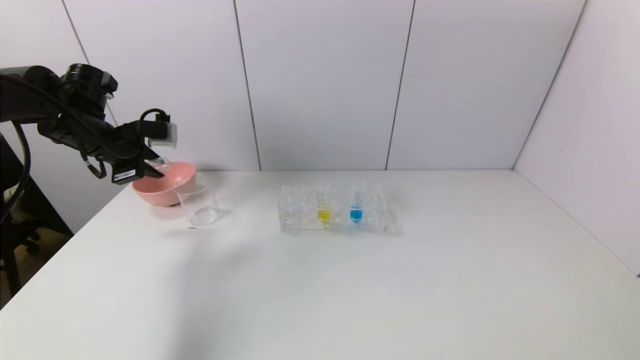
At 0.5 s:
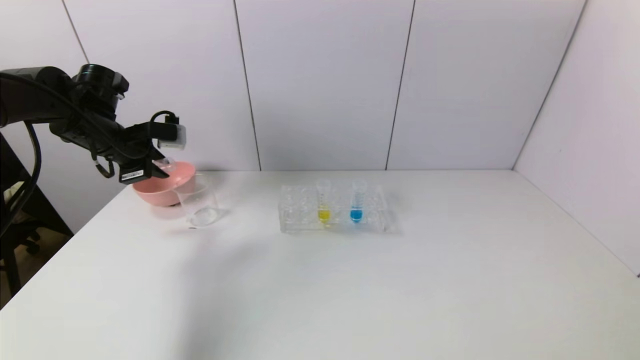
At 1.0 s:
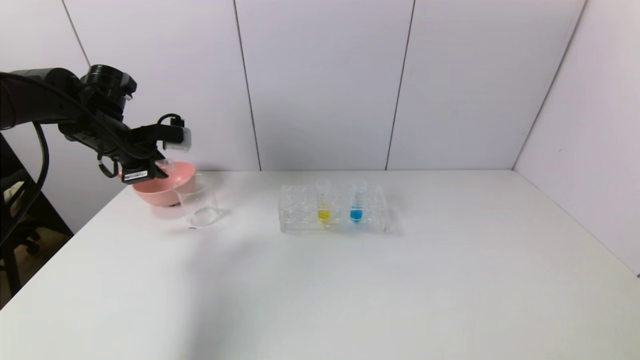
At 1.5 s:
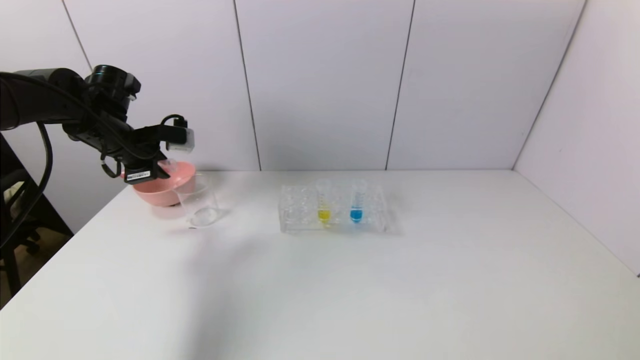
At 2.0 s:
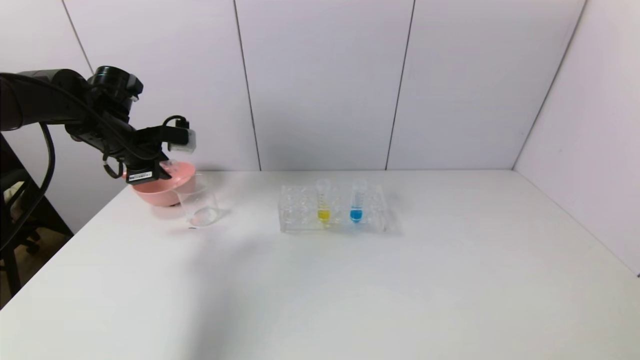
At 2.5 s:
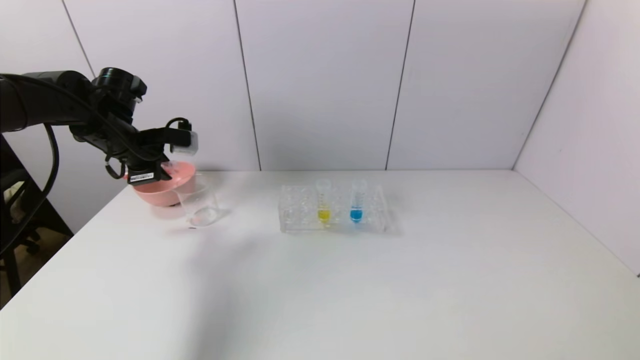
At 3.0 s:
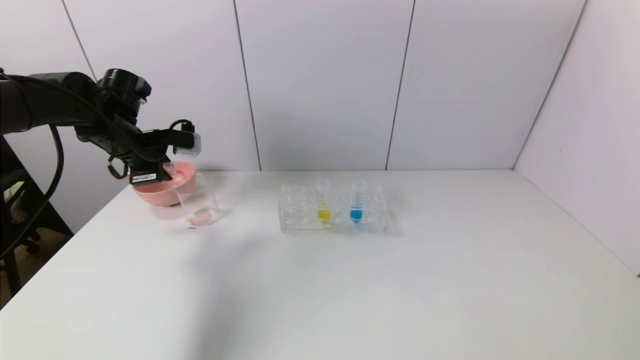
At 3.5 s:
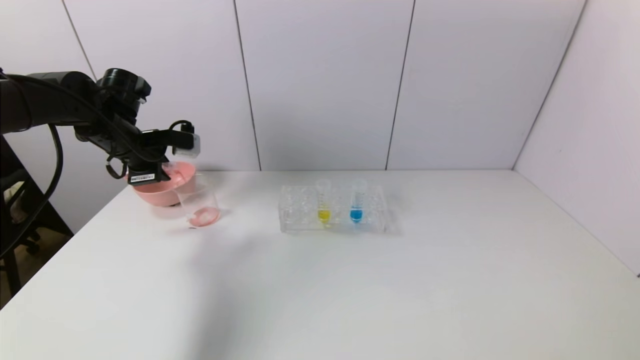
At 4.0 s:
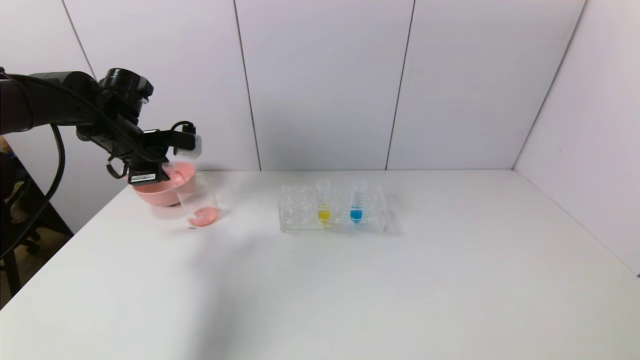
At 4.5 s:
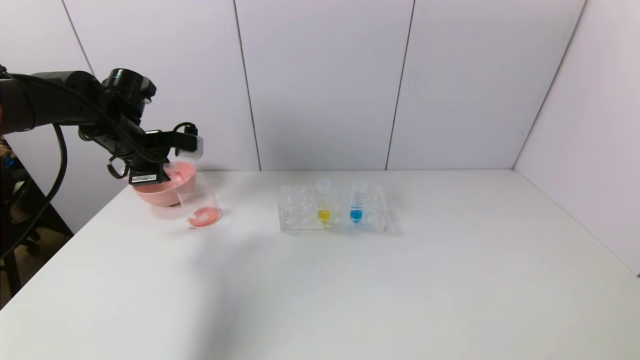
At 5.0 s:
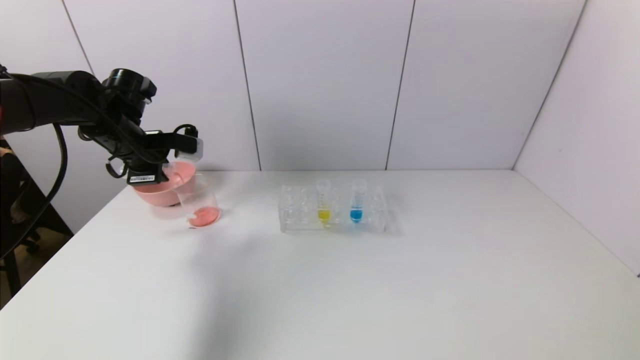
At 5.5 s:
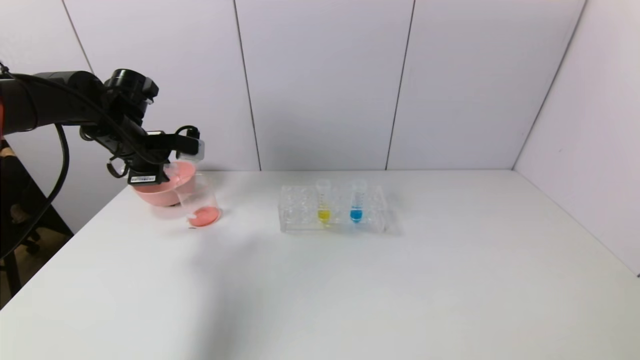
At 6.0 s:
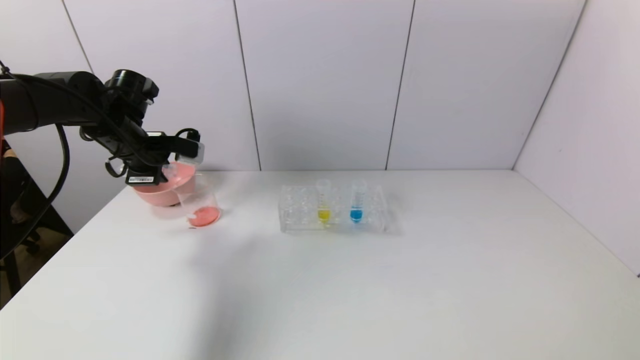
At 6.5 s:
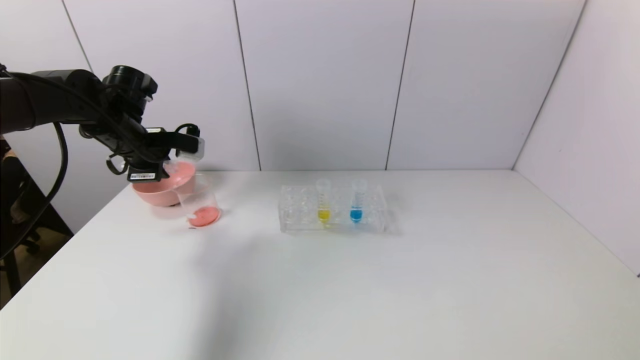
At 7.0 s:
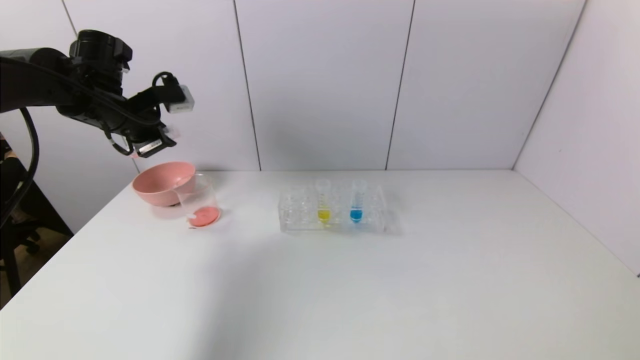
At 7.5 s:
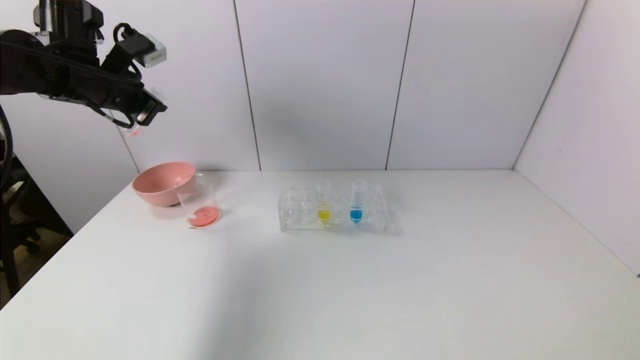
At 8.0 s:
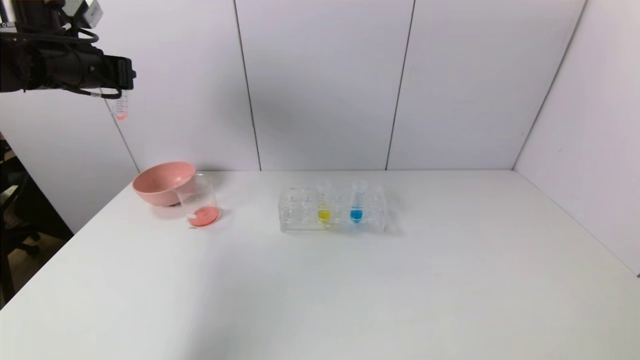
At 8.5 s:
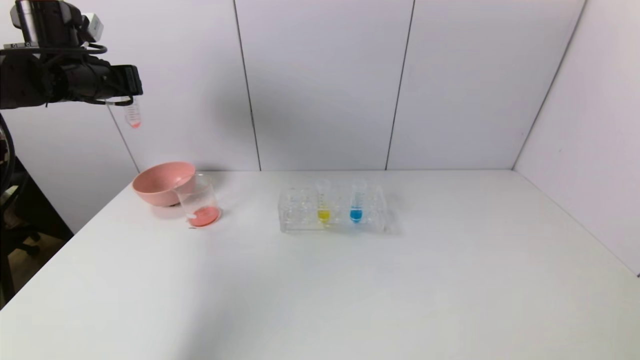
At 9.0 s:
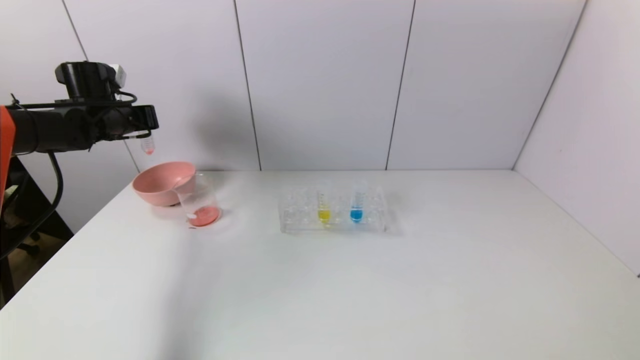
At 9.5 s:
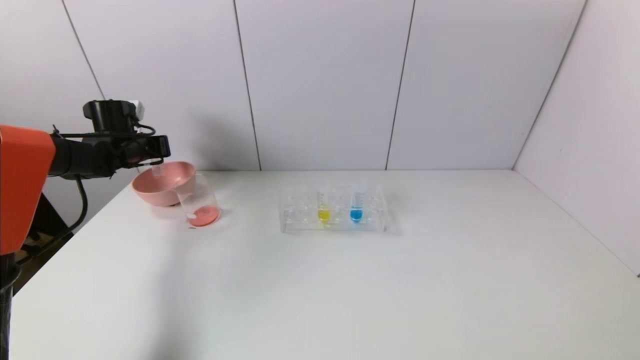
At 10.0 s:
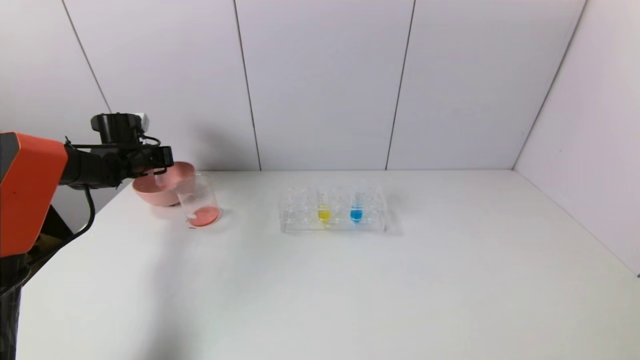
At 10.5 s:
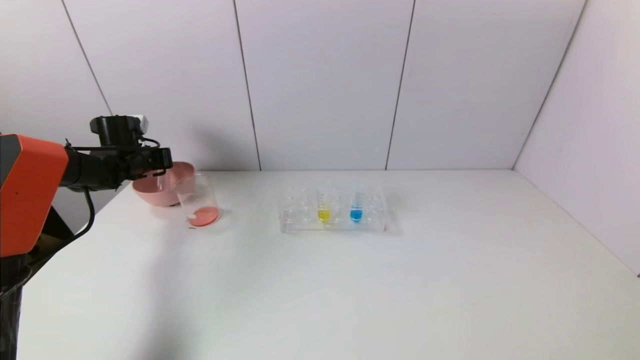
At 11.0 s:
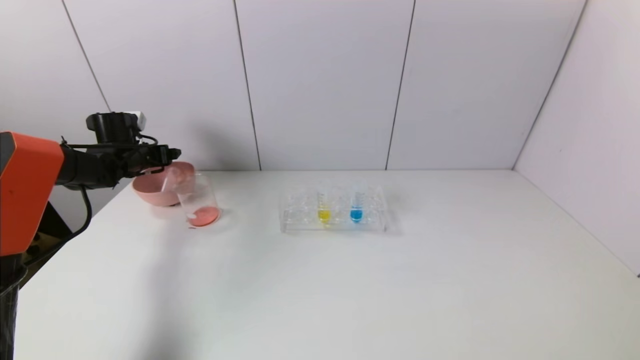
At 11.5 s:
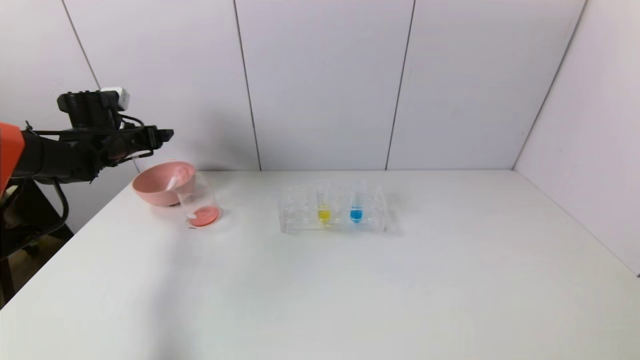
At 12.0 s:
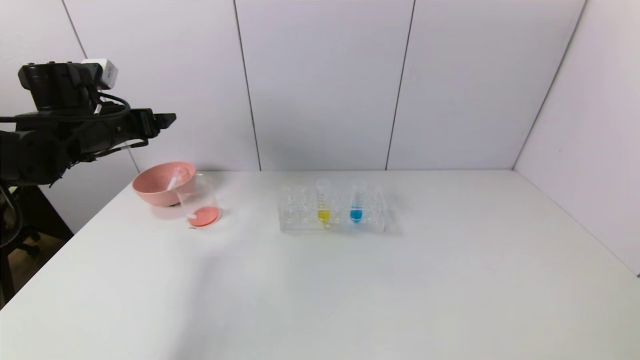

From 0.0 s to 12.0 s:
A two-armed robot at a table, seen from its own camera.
Task of the whole recording: pick up the test tube with red pigment and the test tube with blue pigment by grippers and pour them into the container.
Step, from 0.0 s to 7.5 s: Pour the red reagent into the graduated cylinder with the left gripper.
Step, from 8.0 s to 11.5 s: Place the test tube into the bowl with the left gripper.
From 0.0 s to 6.0 s: The grippers move only a little.
From 6.0 s to 8.0 s: The left gripper travels upward by approximately 10 cm.
From 8.0 s to 10.0 s: The left gripper heads downward and forward, covering approximately 20 cm.
From 10.0 s to 12.0 s: The left gripper shifts about 15 cm backward, upward and to the right, and opens its fingers.

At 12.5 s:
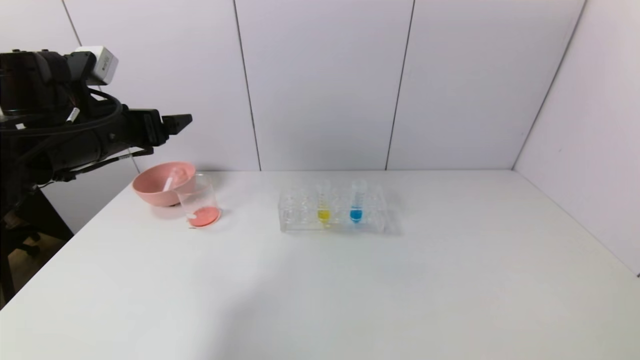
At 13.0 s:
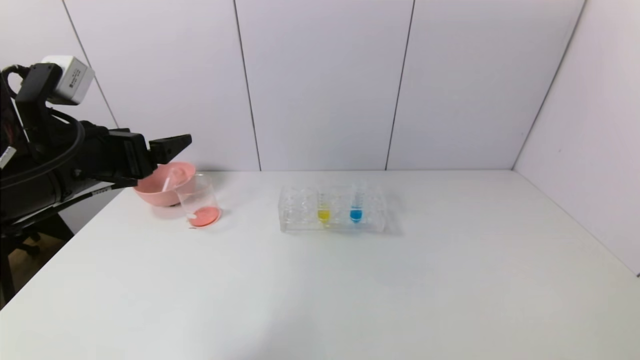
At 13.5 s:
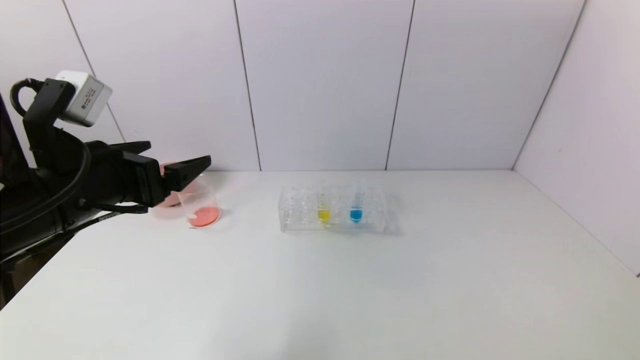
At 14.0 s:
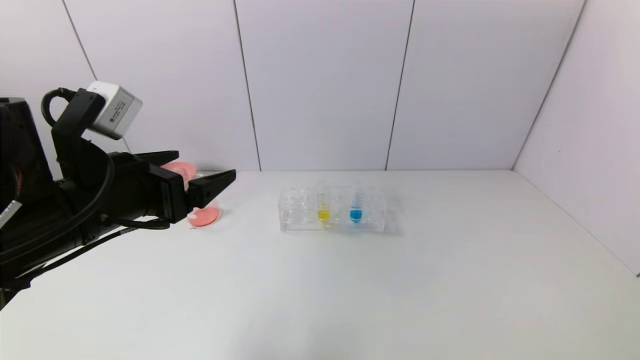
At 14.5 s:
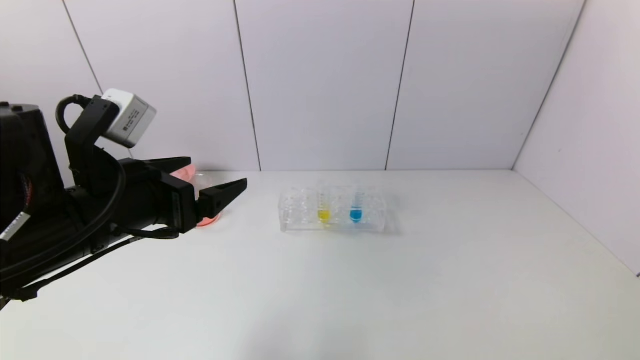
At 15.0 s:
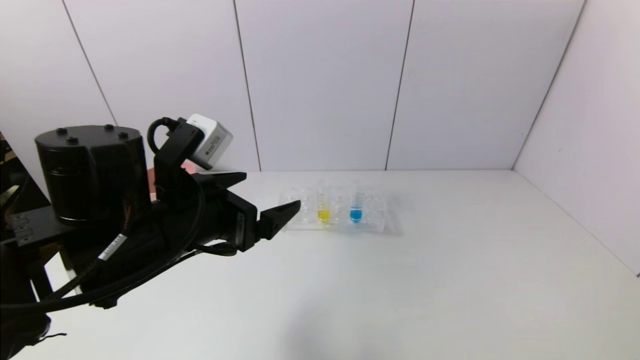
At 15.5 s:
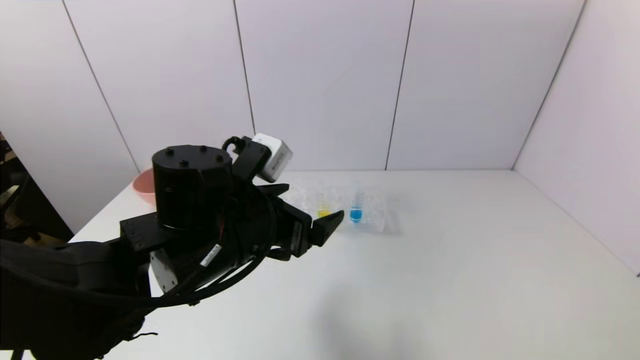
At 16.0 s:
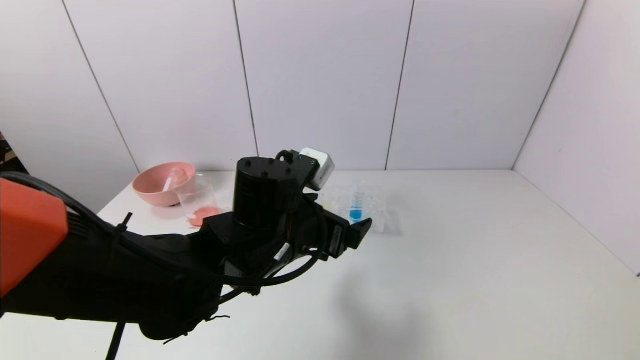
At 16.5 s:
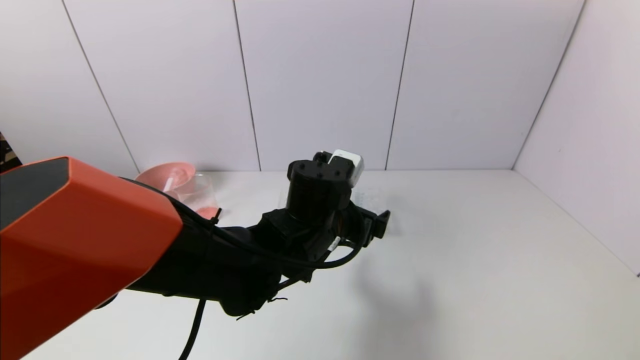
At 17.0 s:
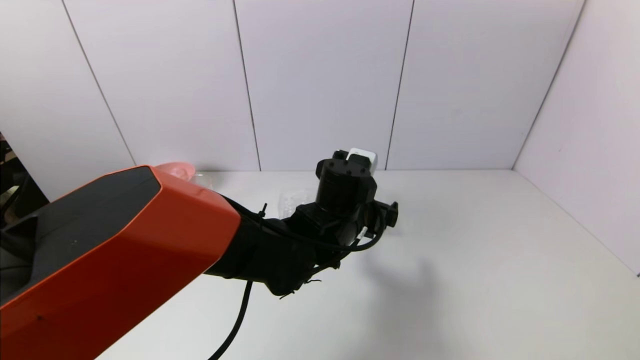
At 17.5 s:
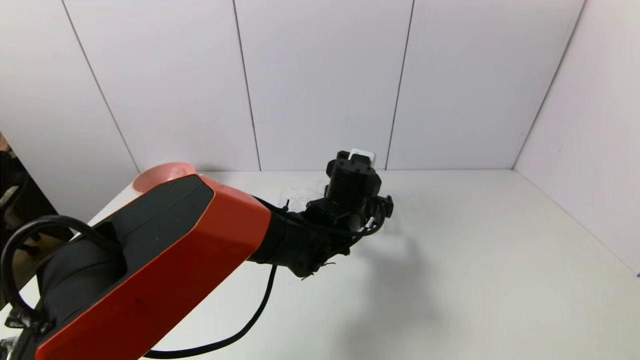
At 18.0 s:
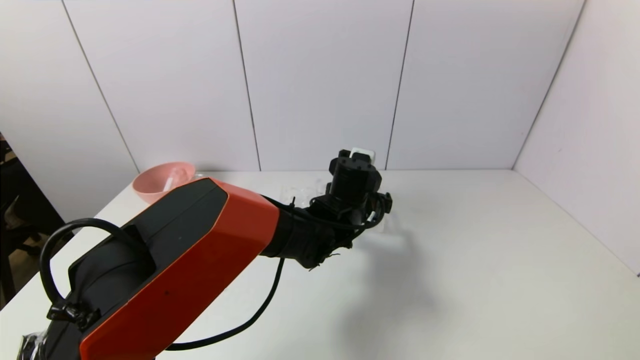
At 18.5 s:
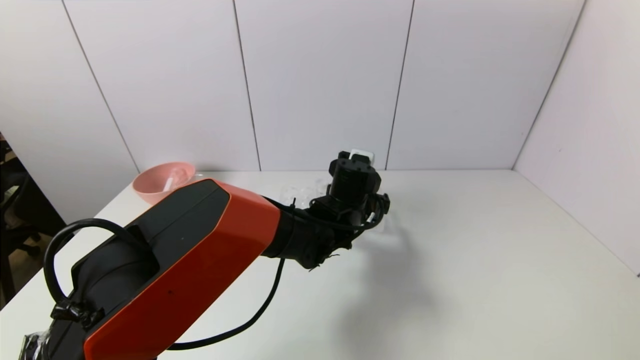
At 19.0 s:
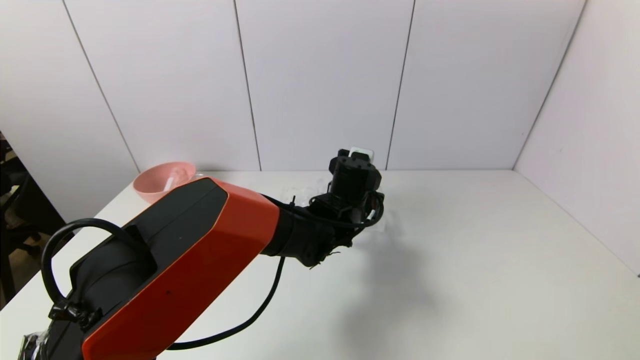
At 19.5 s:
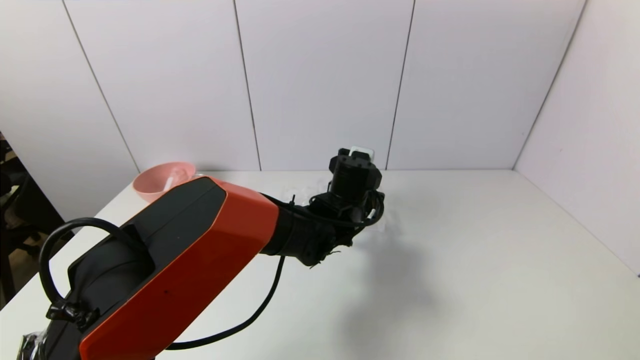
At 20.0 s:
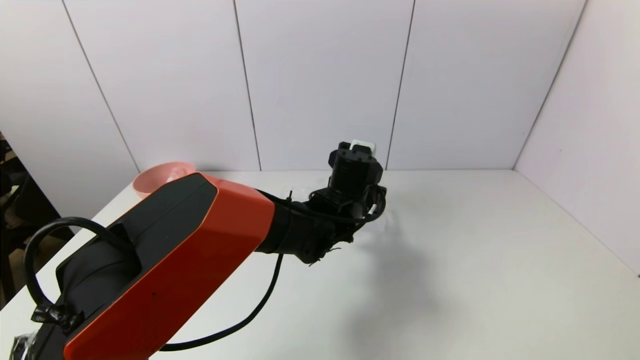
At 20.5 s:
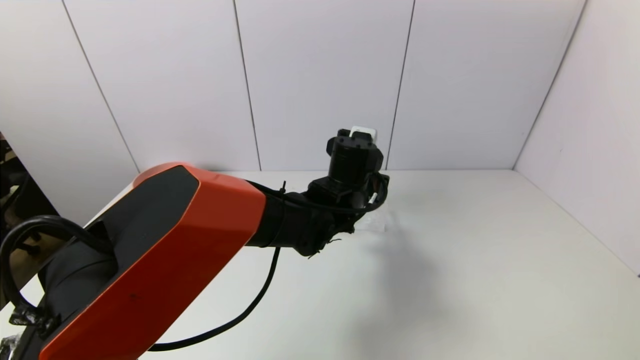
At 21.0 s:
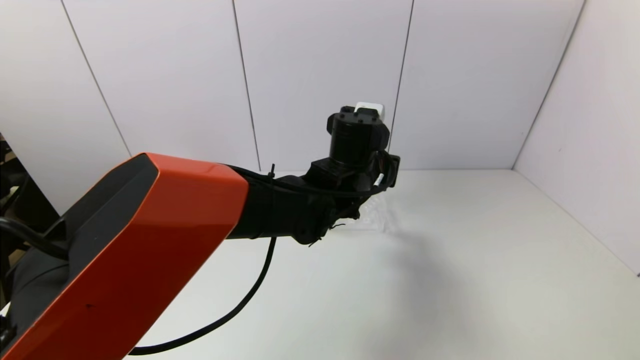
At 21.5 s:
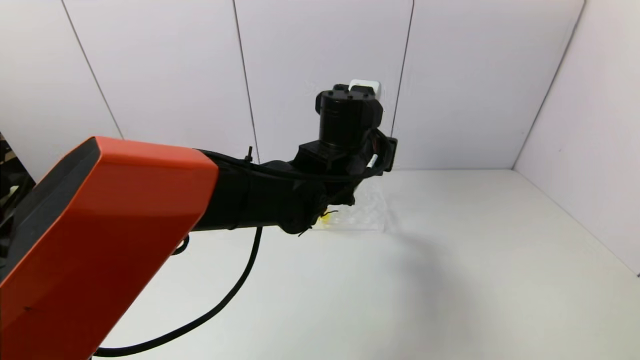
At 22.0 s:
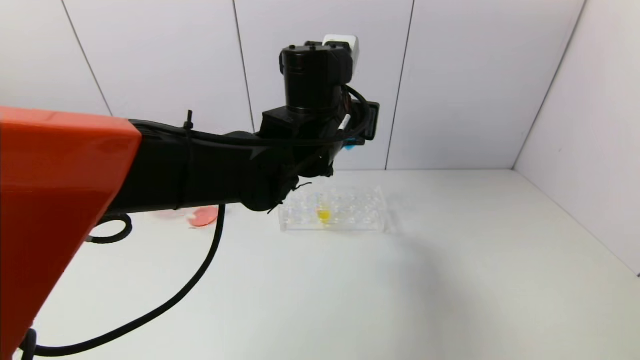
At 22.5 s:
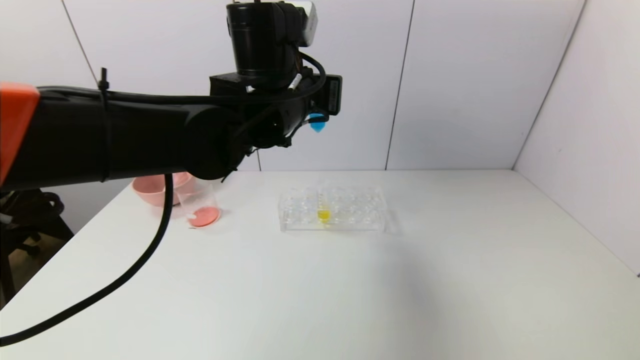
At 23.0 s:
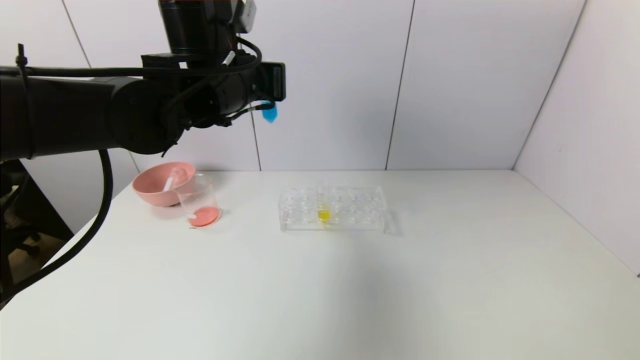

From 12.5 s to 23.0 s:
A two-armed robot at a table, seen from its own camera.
Task of the whole recording: pick up the test tube with red pigment and the test tube with blue pigment by grippers and pour them into the container.
Step, from 12.5 s to 19.5 s: Grasp the blue reagent with the left gripper.
From 12.5 s to 14.5 s: The left gripper moves backward and to the right, about 15 cm.
From 14.5 s to 16.5 s: The left gripper moves to the right, downward and forward, about 25 cm.
From 16.5 s to 19.0 s: The left gripper moves forward and to the right, some 10 cm, and closes its fingers.
From 19.0 s to 21.0 s: The left gripper heads upward, covering roughly 10 cm.
From 21.0 s to 23.0 s: The left gripper heads to the left and upward, covering some 20 cm.
